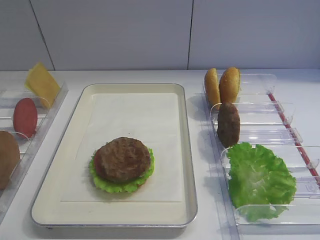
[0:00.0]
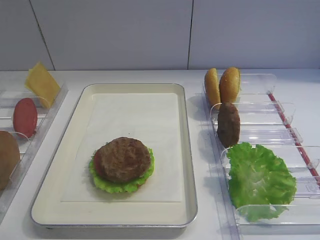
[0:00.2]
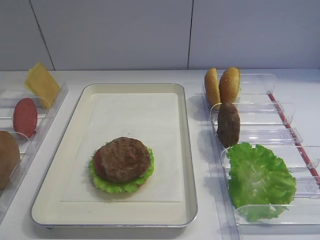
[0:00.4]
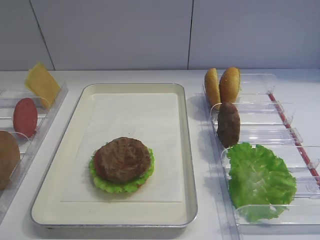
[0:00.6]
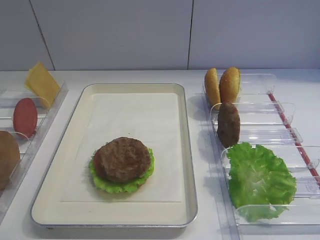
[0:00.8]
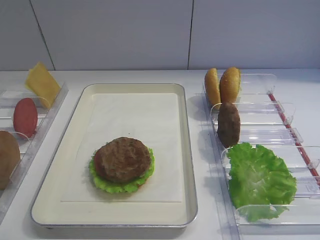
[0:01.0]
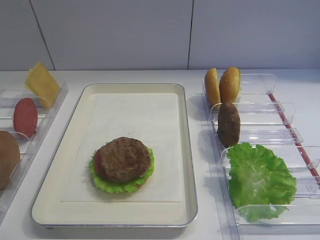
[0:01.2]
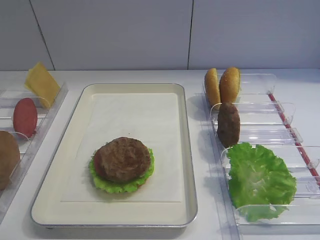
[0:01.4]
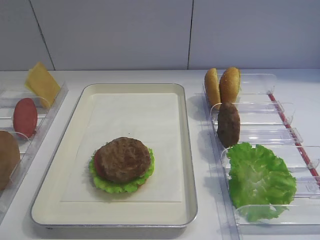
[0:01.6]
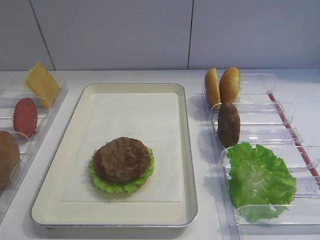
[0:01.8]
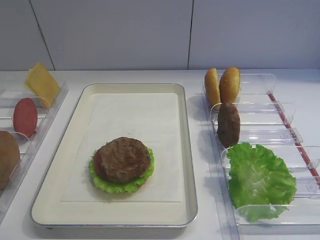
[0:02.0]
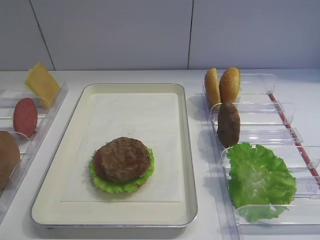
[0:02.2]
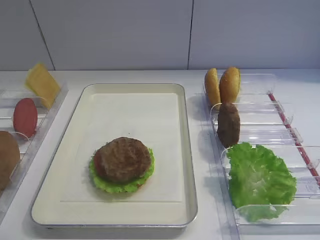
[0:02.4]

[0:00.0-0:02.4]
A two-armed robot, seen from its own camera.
1.2 to 2.4 s: Neither gripper changes place.

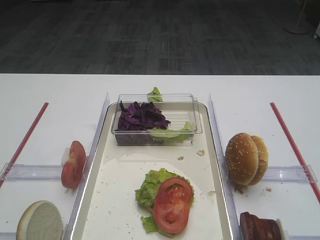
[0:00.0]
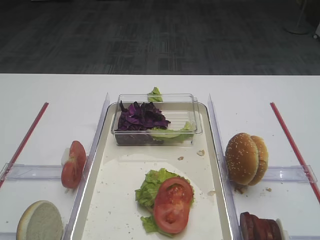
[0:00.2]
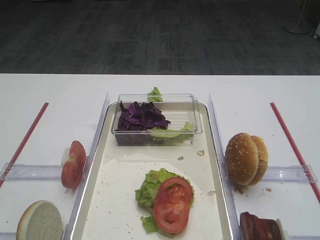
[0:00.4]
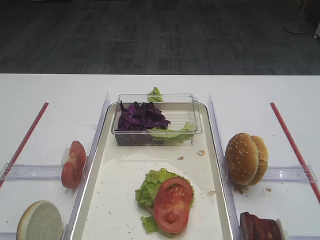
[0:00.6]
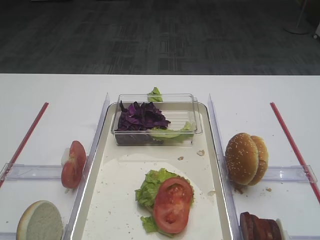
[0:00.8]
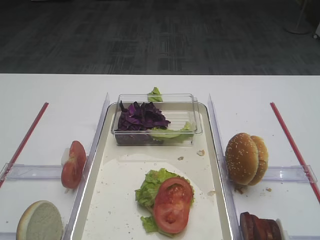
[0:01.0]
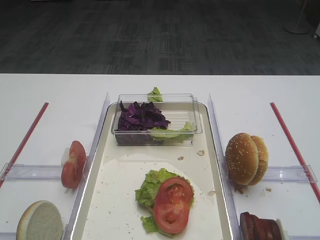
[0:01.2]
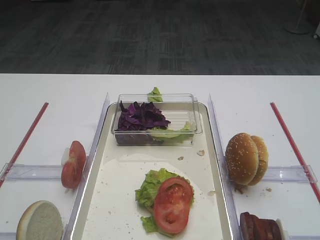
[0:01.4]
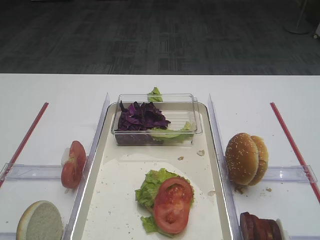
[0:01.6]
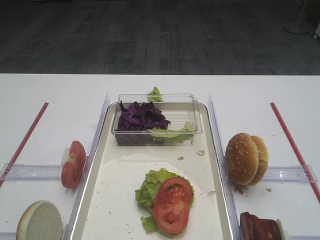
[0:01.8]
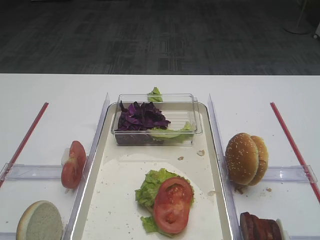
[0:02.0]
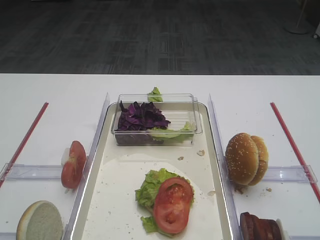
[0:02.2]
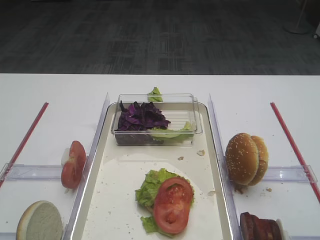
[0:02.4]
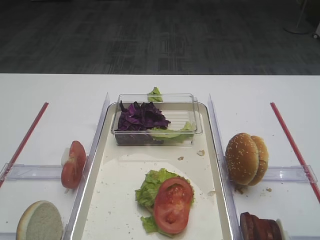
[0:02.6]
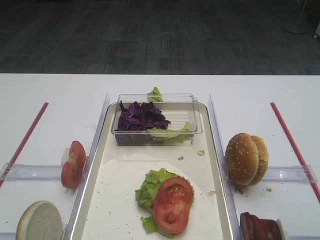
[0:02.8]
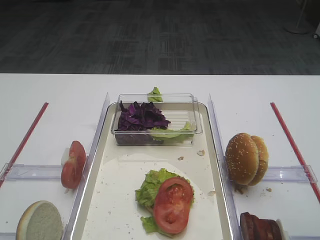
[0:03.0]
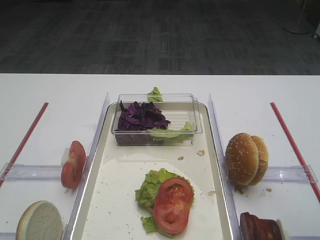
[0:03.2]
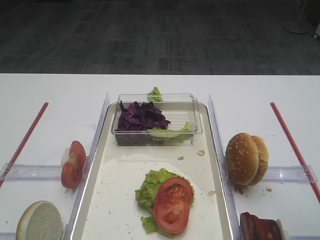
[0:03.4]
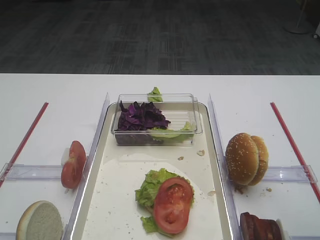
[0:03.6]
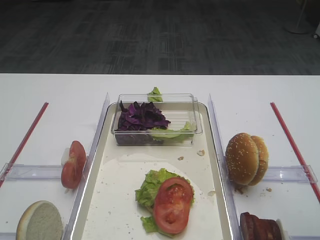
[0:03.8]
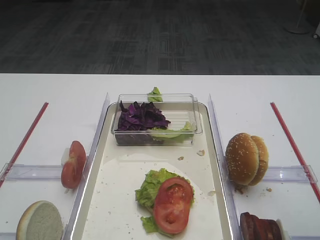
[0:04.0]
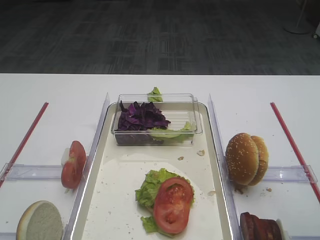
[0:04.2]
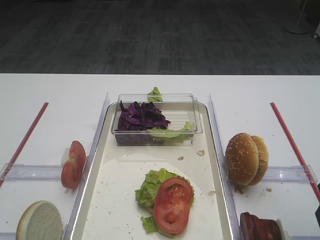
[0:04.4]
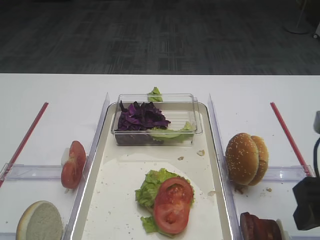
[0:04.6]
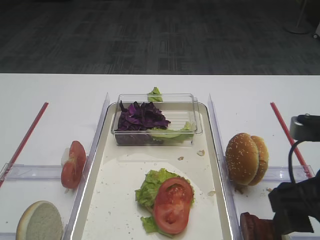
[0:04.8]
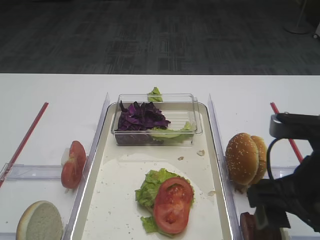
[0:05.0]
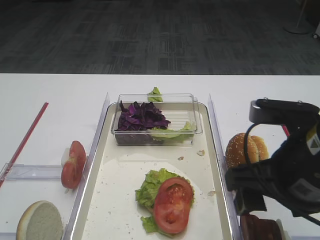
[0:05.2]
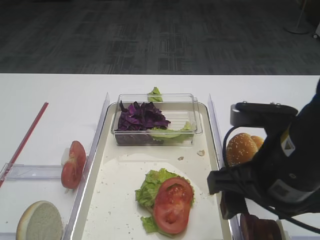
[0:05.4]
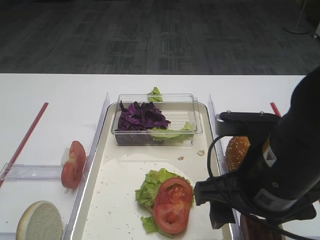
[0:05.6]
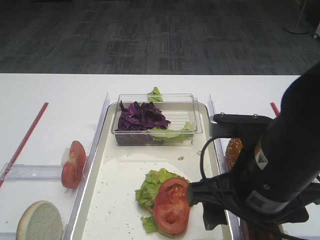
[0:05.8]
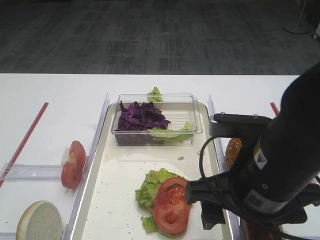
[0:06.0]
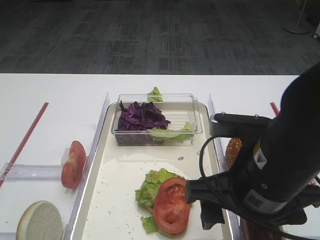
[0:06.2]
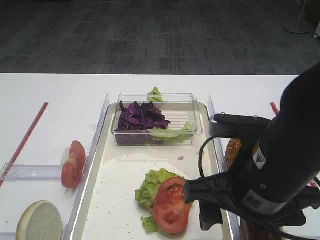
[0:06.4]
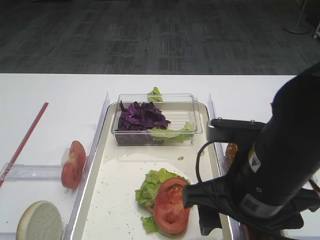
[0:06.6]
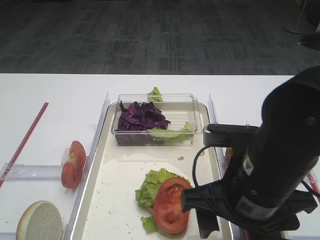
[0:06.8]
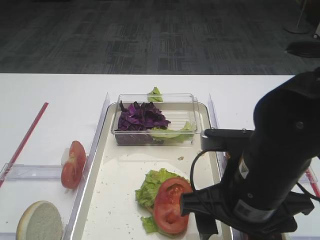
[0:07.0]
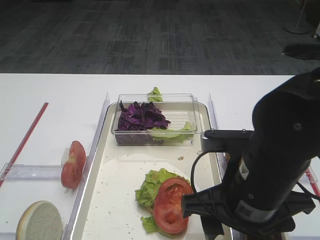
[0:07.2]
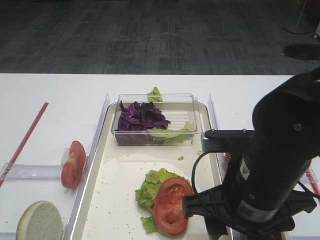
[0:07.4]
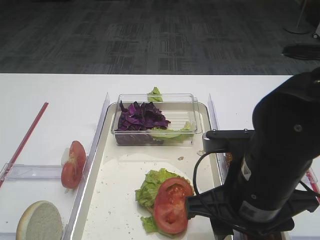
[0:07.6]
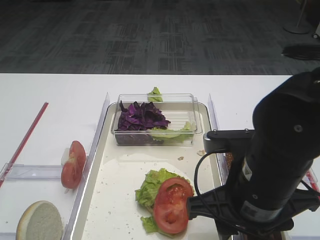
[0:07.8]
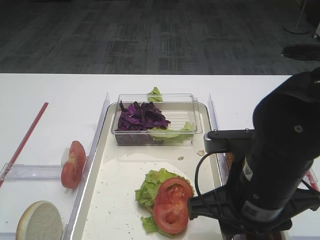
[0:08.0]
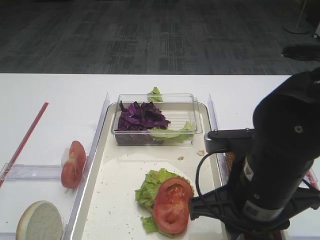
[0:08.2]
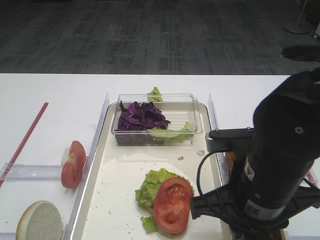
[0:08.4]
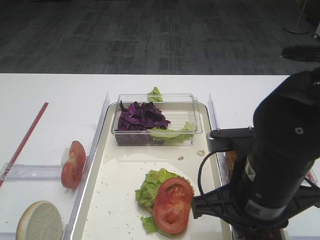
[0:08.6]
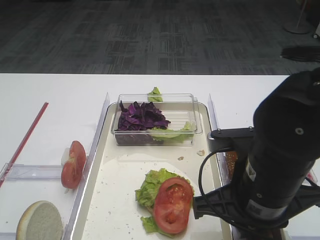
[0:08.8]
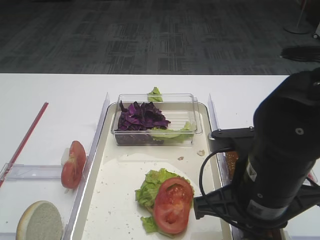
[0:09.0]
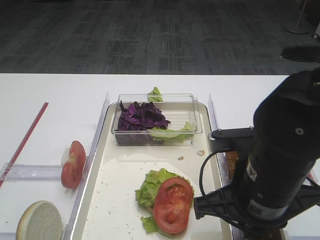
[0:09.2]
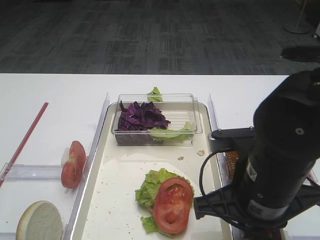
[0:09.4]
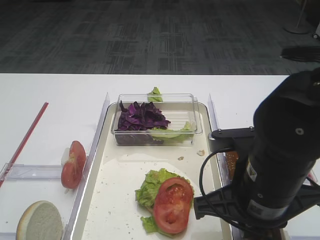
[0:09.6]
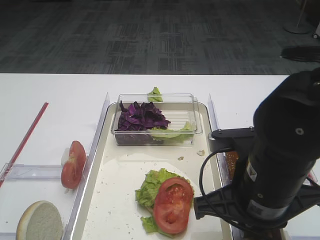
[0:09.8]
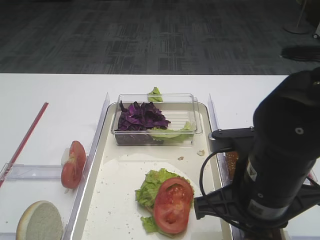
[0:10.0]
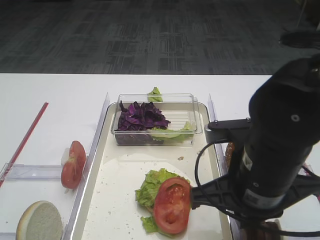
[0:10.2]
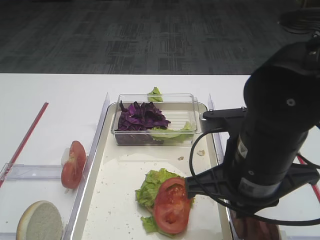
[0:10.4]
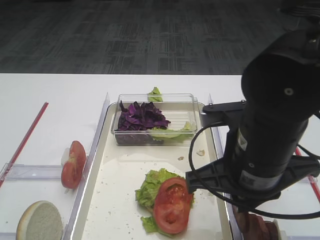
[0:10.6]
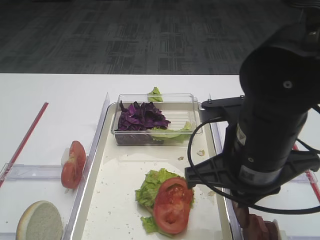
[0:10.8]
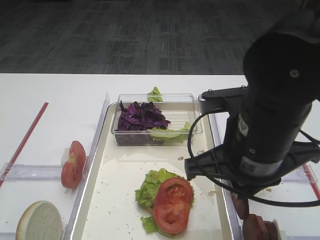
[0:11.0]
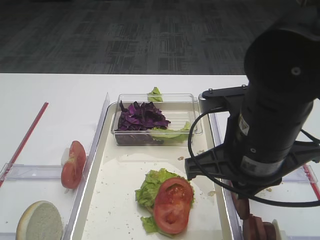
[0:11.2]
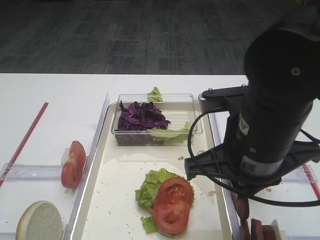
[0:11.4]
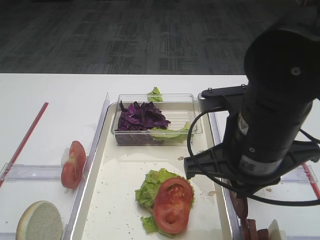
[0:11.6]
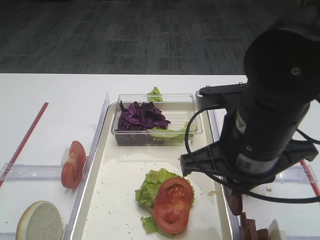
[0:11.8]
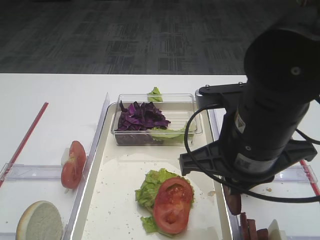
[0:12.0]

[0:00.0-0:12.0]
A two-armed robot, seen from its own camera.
Step, 0.0 to 11.0 s: Pick up the cutlet with the right gripper.
4.4 to 6.0 s: The right gripper goes approximately 15 cm to the left.
6.0 to 7.6 s: The grippers stay close to where they were, moving slightly.
7.6 to 9.0 s: The right gripper closes its fingers.
9.0 to 12.0 s: The grippers move only a little.

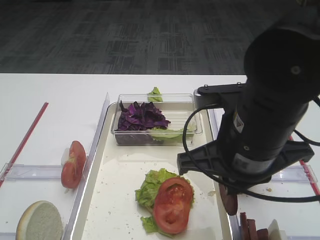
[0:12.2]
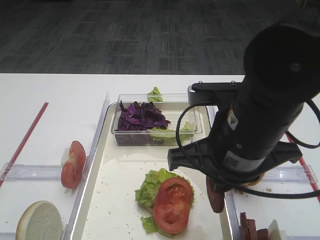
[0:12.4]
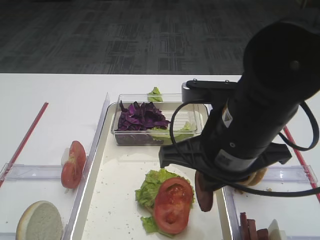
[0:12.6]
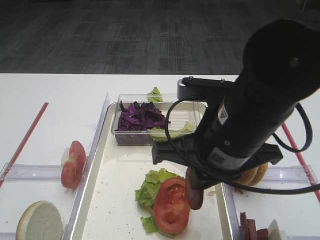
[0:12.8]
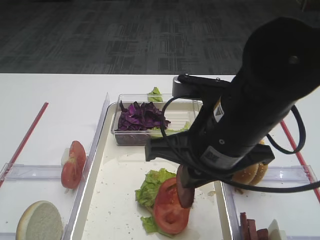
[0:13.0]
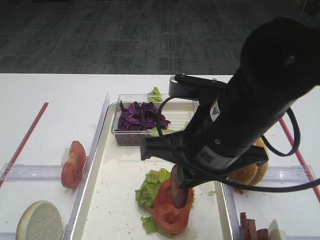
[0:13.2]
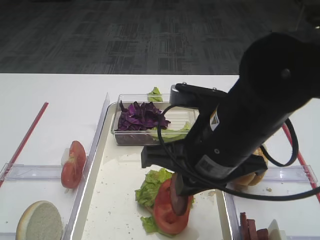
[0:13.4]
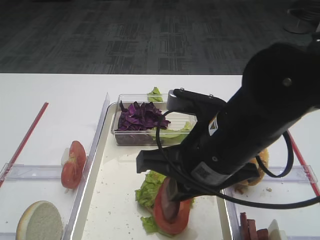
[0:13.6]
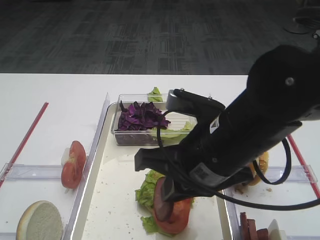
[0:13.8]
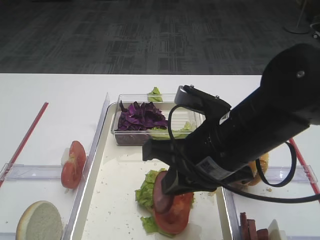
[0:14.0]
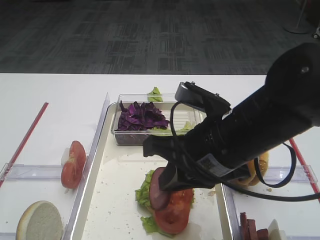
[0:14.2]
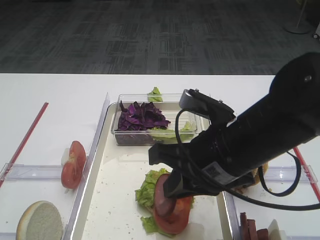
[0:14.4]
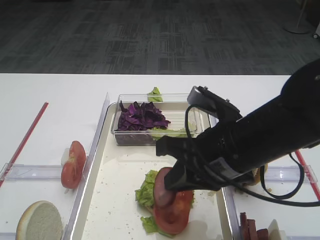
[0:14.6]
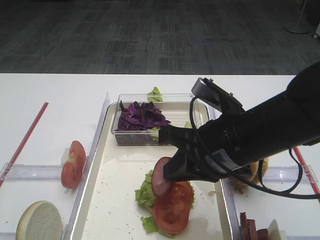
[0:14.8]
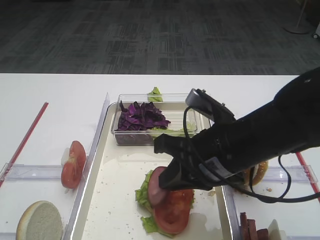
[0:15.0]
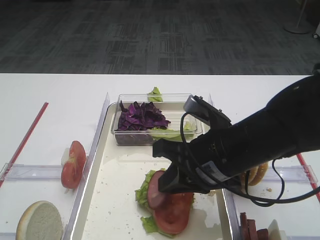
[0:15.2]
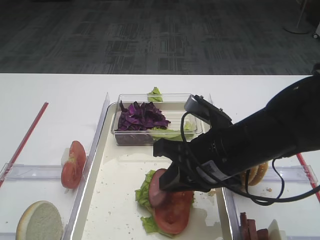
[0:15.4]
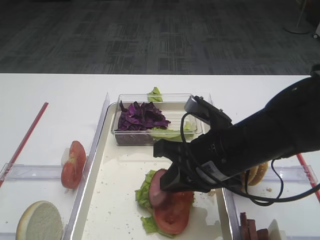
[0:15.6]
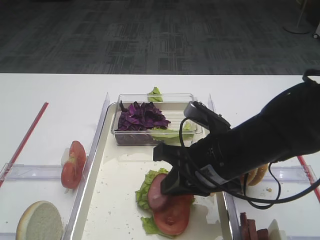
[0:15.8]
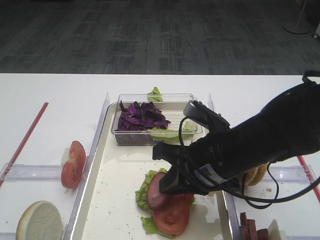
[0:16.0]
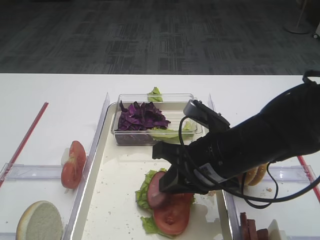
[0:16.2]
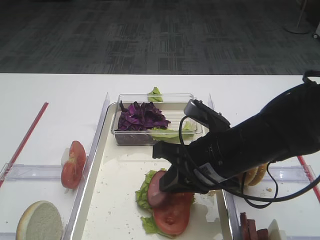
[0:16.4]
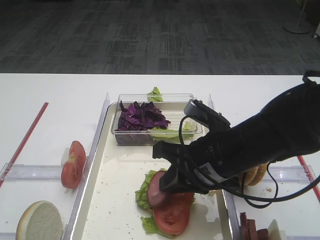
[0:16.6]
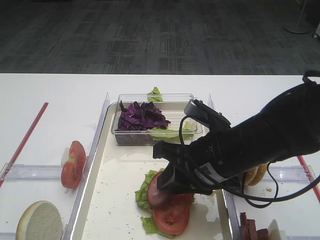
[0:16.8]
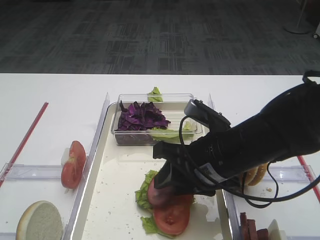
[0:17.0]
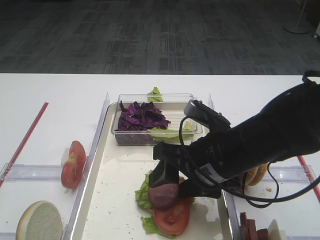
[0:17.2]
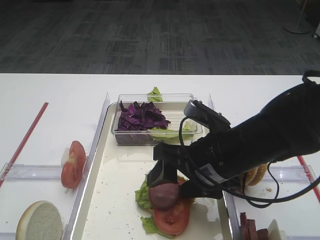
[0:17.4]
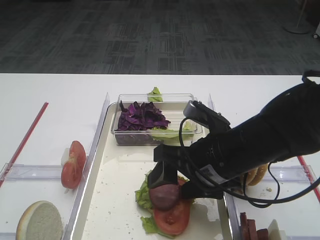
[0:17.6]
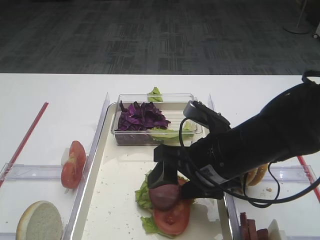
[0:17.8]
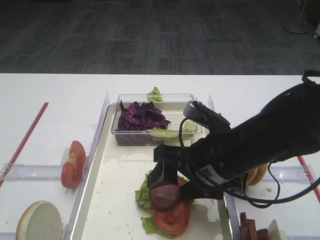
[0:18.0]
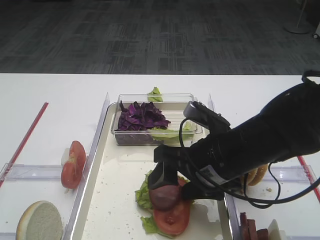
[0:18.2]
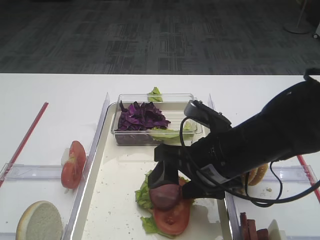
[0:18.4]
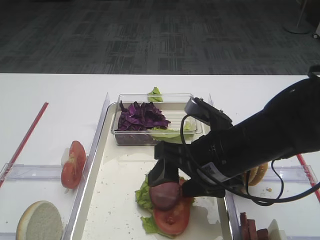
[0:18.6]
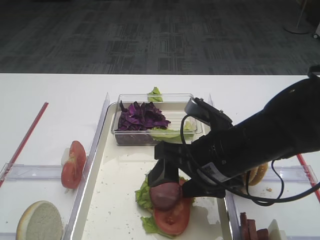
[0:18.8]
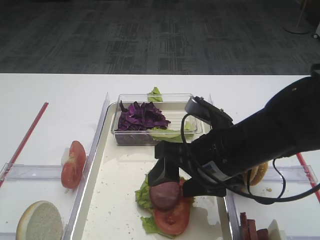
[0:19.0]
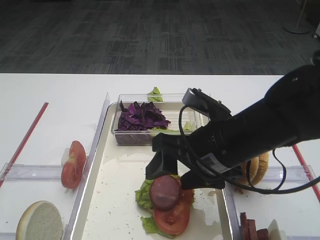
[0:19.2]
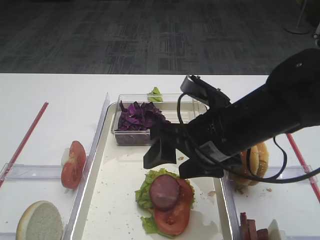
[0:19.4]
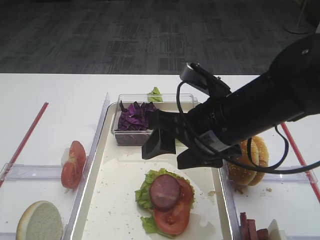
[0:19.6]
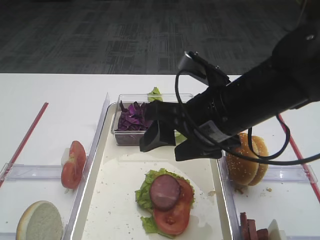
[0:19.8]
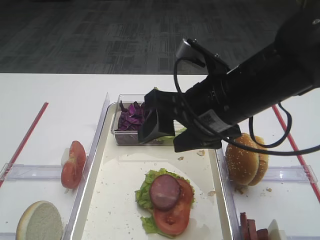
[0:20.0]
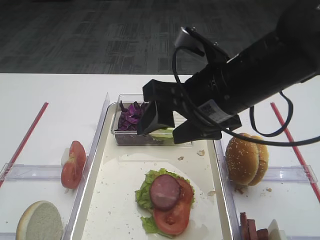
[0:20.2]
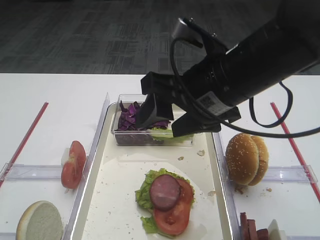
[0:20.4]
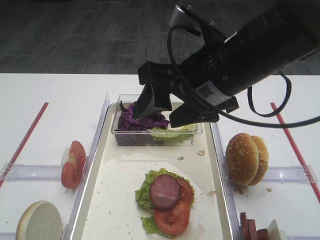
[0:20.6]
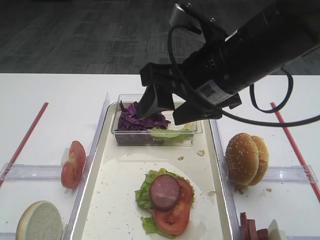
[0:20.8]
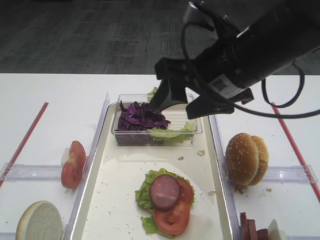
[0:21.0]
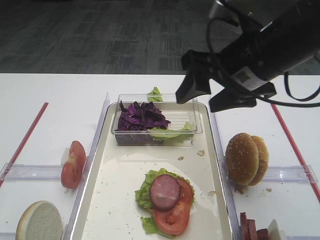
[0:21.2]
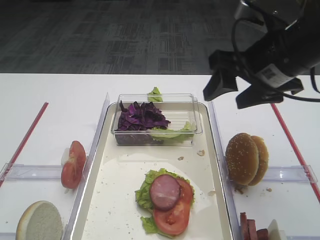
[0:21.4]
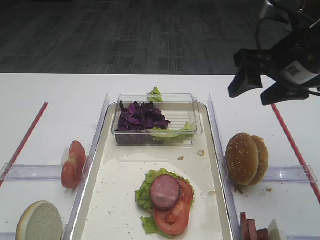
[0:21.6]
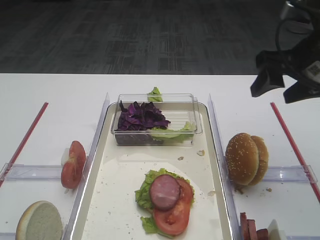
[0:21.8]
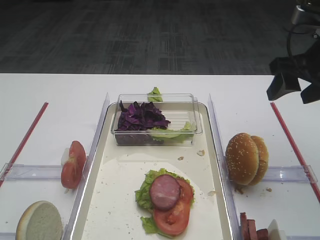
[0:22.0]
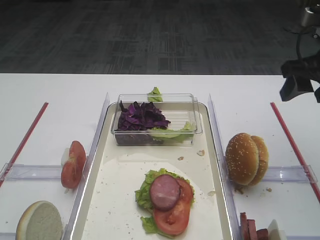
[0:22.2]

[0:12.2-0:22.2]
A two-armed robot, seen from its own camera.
Step, 12.2 to 19.4 s: Place the cutlet on the tomato slice with the right gripper.
13.6 to 15.0 s: The right gripper changes place by about 5 cm.
15.0 to 16.4 s: The grippers stay close to where they were, moving slightly.
16.4 to 18.0 s: The right gripper opens.
18.0 to 19.4 s: The grippers make only small movements.
19.4 to 20.8 s: The right gripper travels upward by roughly 10 cm.
20.8 to 22.2 s: The right gripper heads to the right, covering roughly 20 cm.
